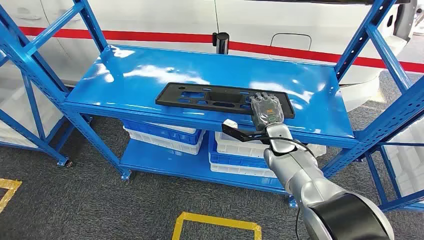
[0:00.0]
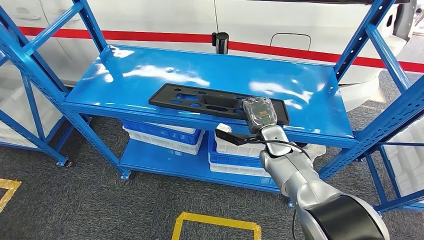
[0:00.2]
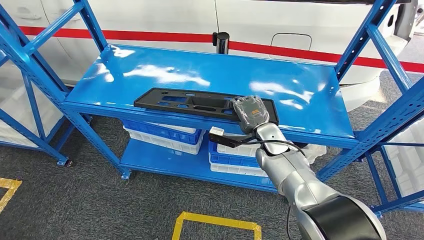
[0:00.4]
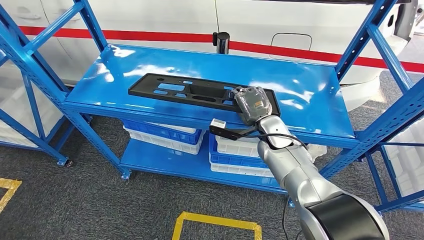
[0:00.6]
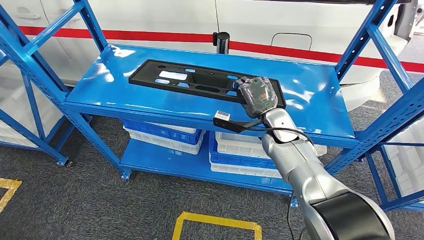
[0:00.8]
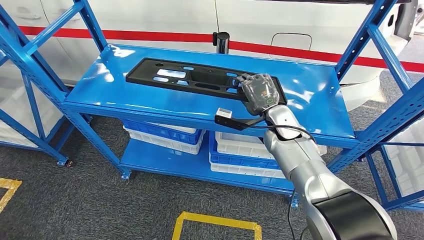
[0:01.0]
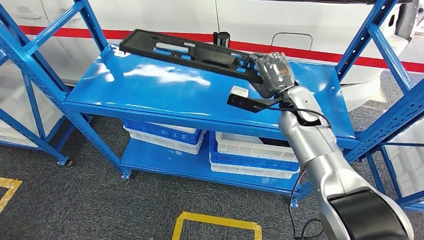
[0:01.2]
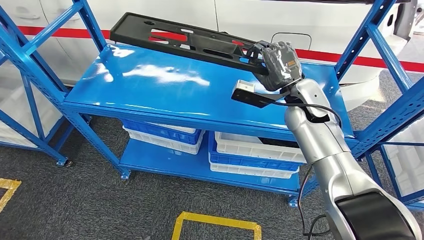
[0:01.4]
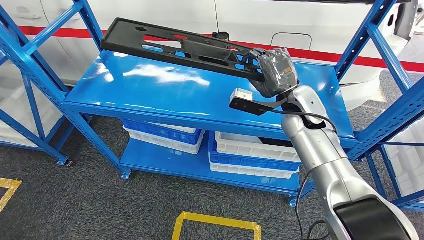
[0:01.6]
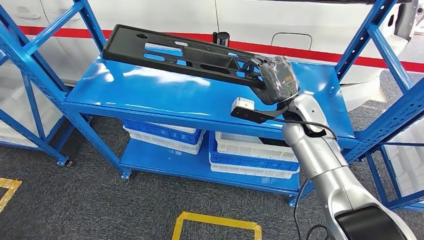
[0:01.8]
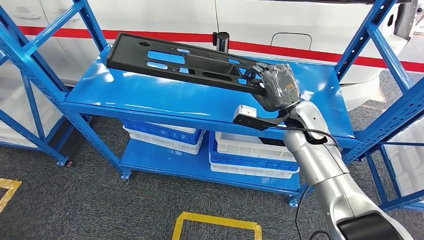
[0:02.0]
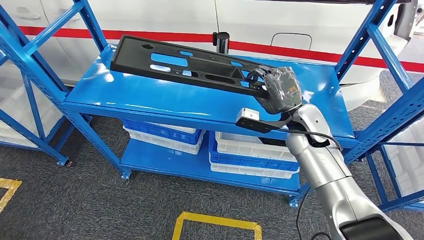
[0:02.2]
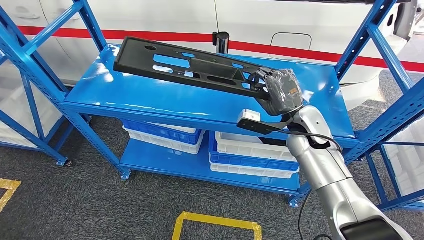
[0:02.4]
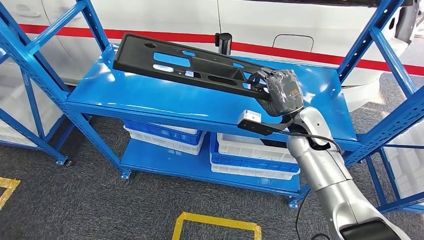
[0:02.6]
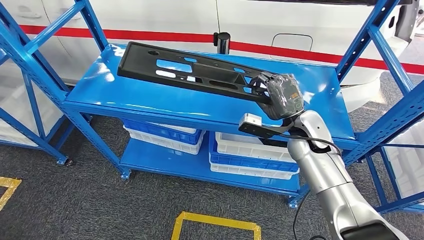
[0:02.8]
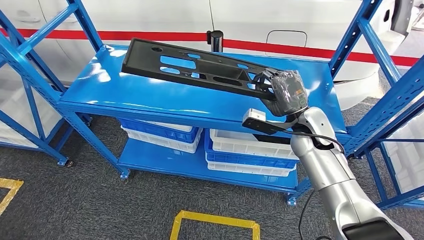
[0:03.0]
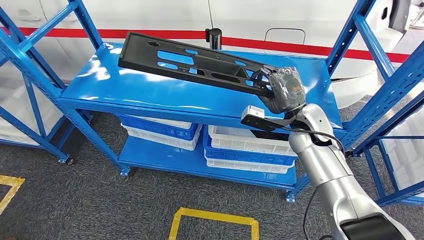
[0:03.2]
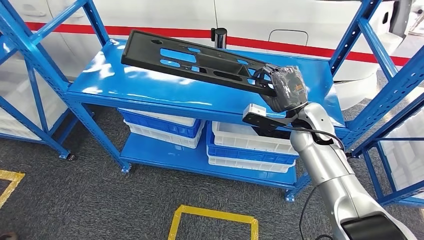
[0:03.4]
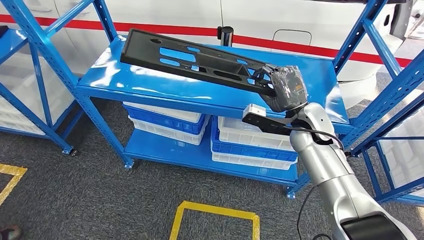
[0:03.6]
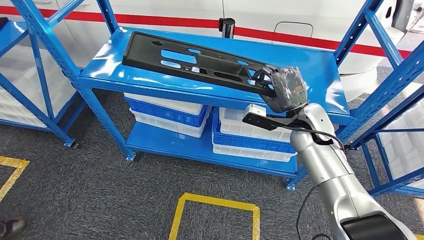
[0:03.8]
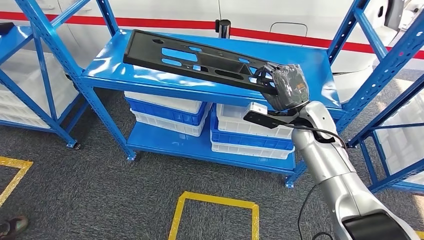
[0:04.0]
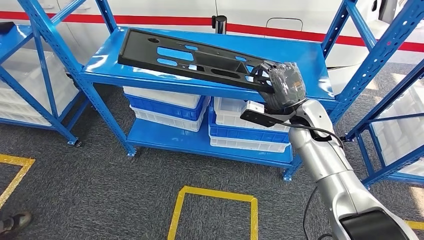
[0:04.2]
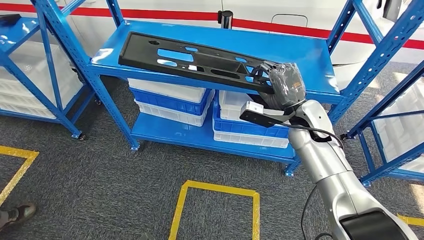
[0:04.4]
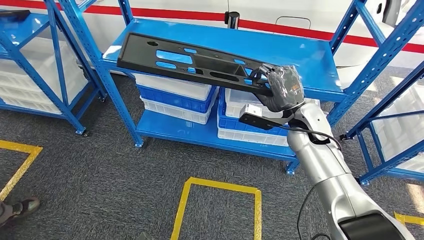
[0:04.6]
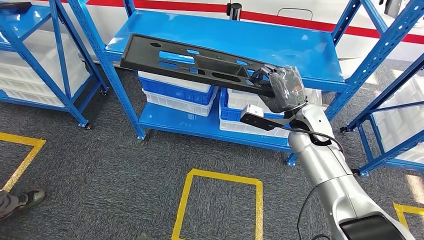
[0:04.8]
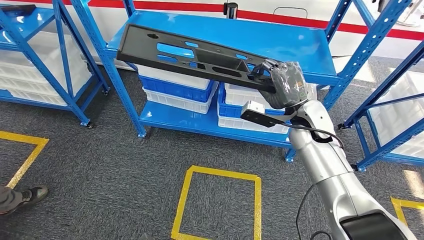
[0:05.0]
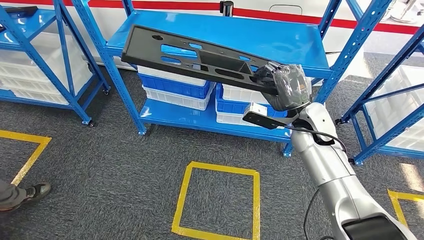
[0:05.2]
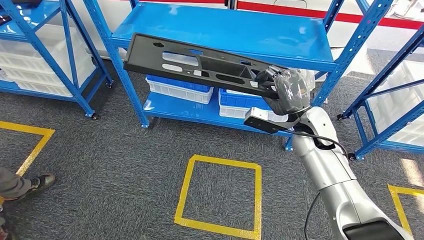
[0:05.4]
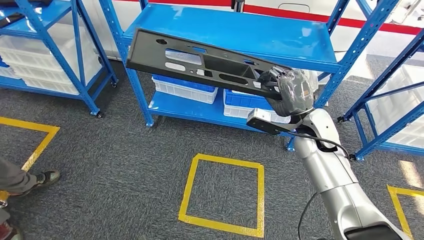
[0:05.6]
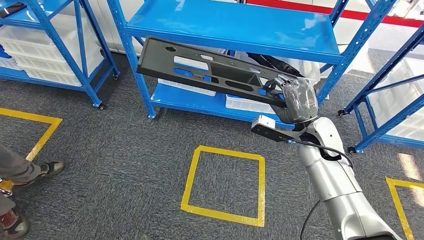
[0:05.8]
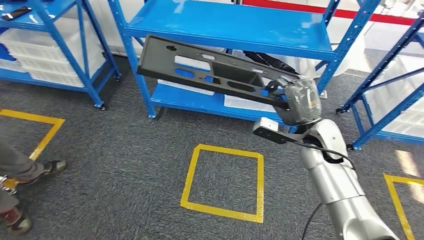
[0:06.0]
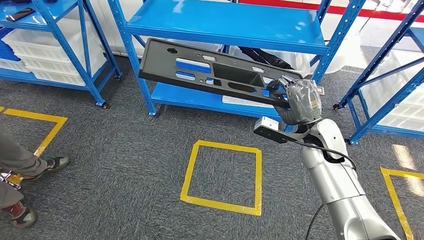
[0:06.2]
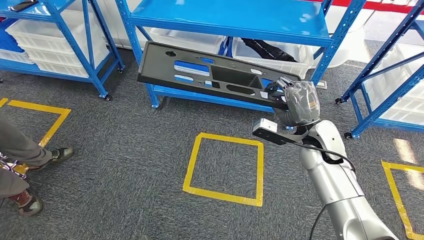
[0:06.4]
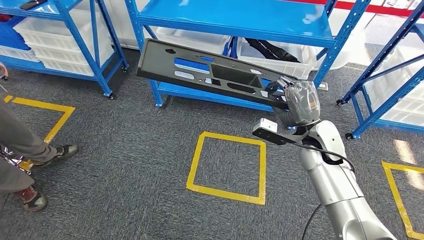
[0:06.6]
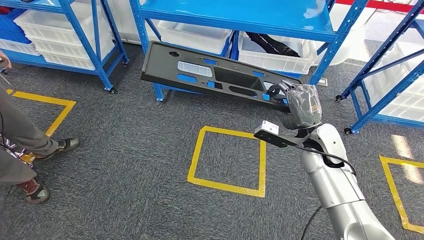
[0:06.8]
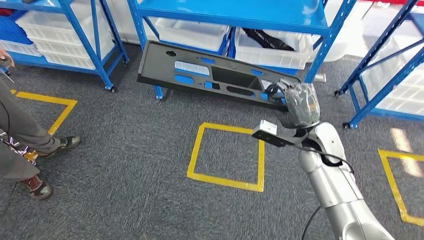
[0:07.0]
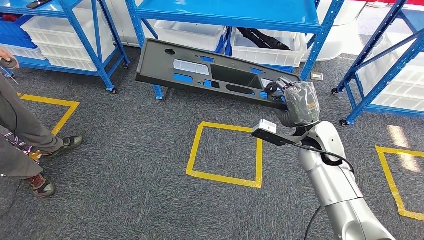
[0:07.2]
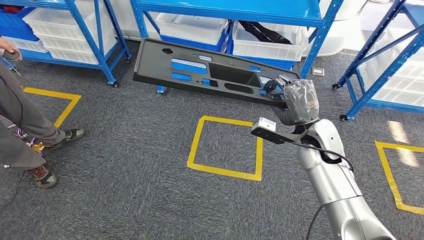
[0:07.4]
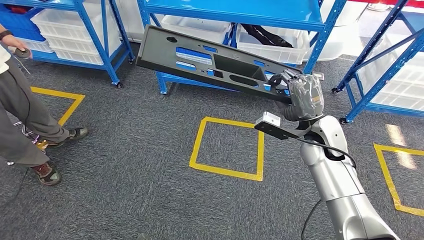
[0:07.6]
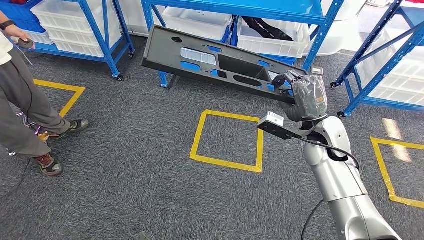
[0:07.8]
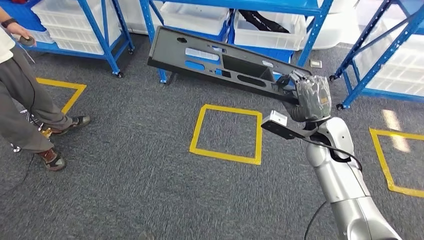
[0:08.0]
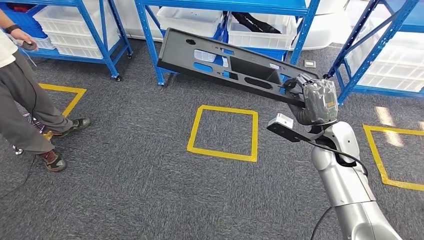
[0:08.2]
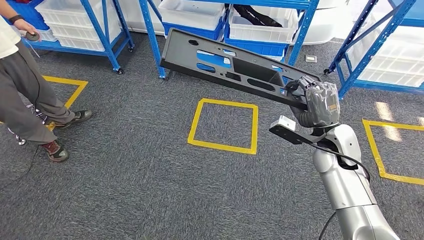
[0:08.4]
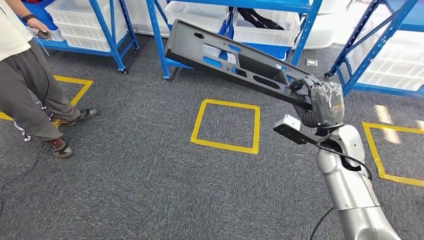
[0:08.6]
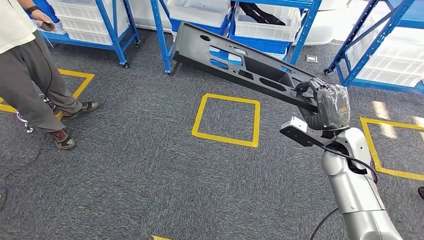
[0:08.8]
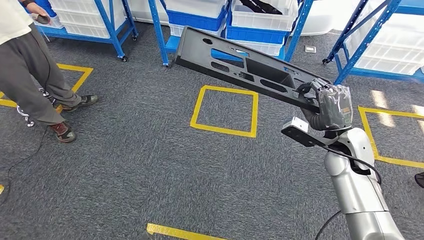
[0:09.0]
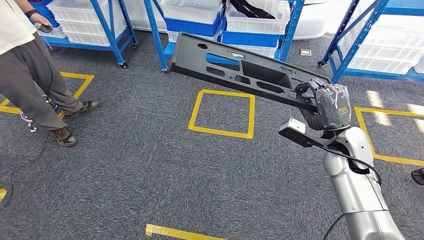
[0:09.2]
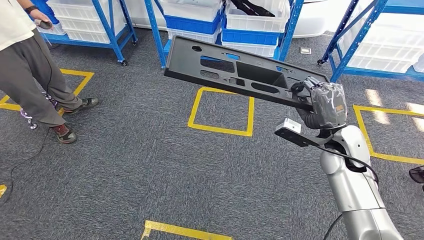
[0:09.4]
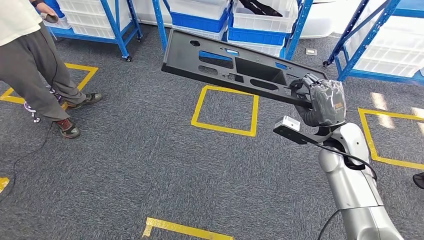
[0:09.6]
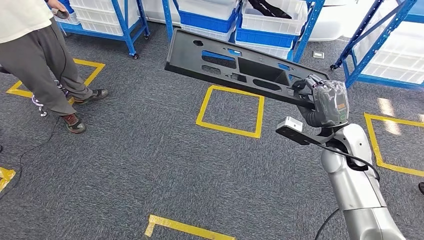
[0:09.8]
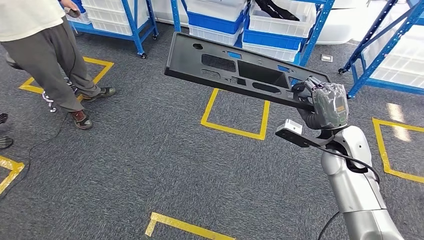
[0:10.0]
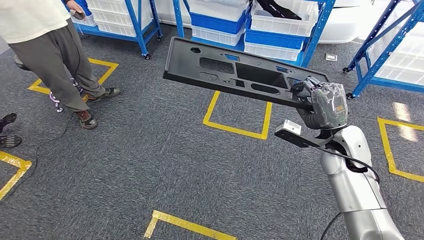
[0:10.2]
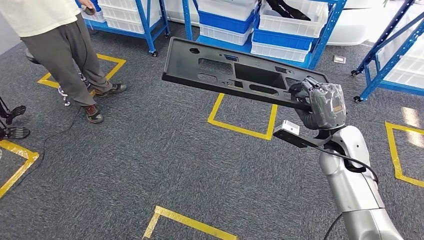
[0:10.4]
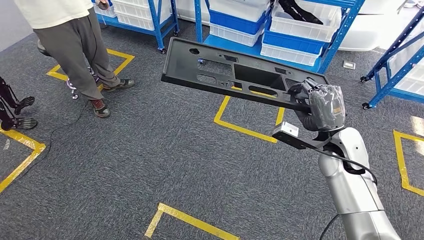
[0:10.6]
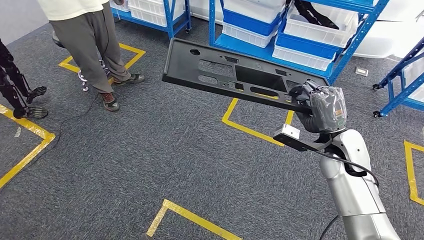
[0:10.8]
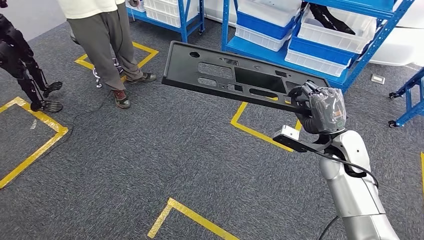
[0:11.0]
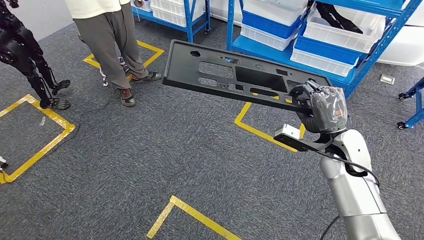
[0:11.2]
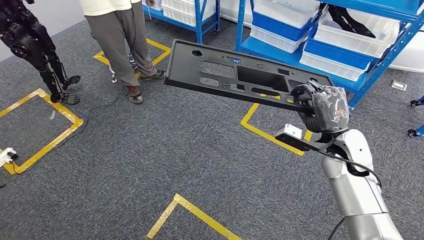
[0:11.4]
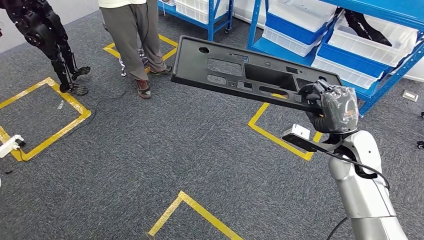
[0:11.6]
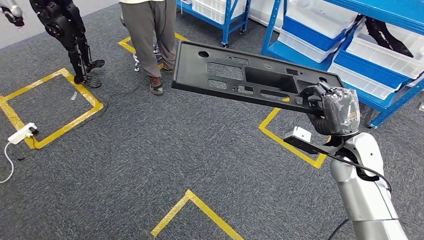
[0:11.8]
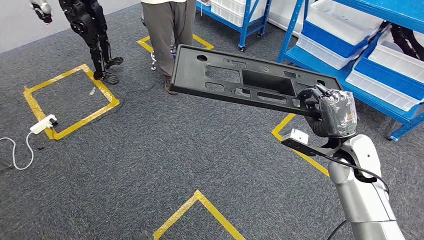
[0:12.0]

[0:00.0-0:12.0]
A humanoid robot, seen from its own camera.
Step, 0:00.0 to 0:04.8: Pick up the large material from the shelf.

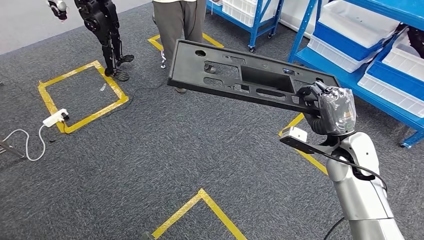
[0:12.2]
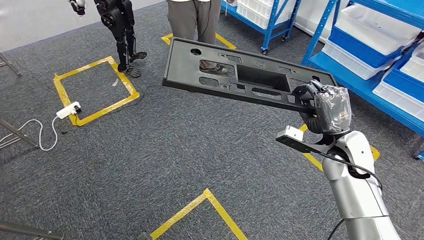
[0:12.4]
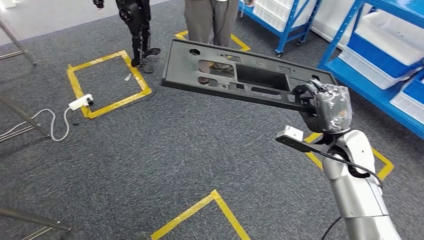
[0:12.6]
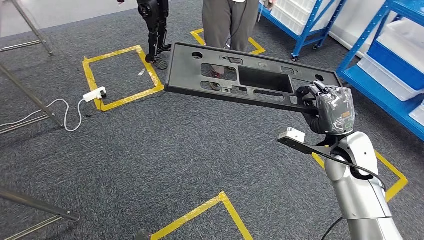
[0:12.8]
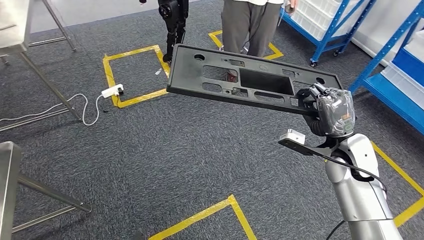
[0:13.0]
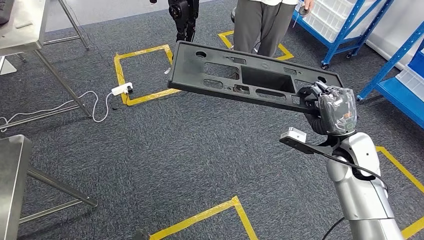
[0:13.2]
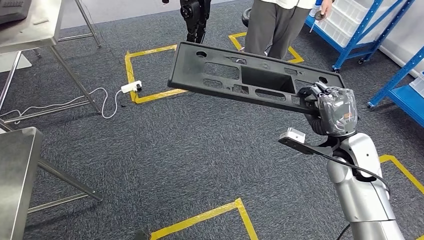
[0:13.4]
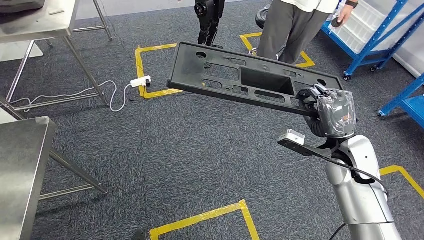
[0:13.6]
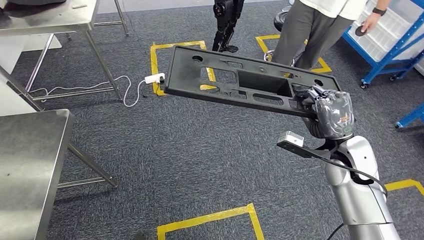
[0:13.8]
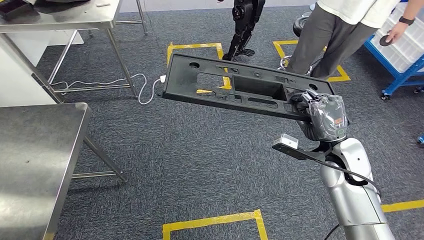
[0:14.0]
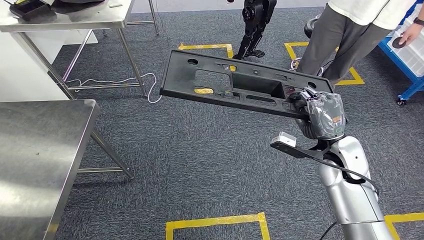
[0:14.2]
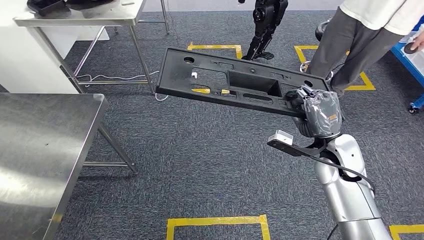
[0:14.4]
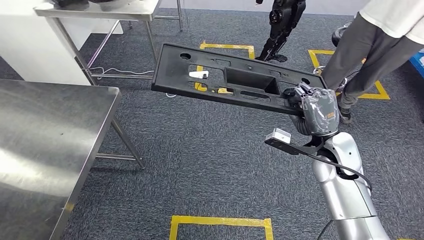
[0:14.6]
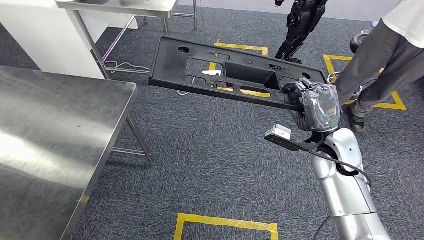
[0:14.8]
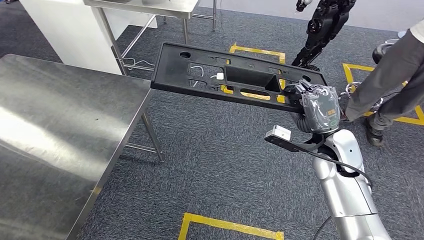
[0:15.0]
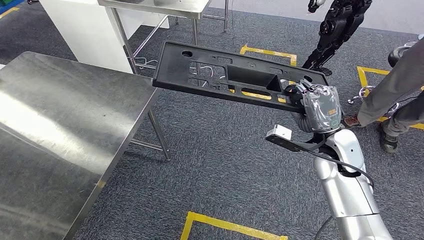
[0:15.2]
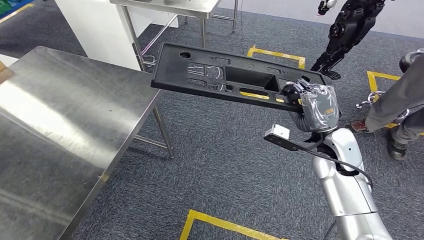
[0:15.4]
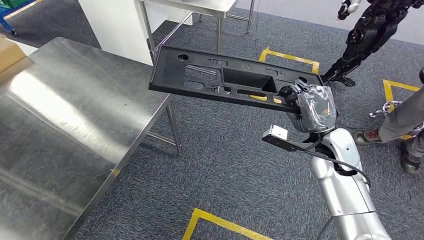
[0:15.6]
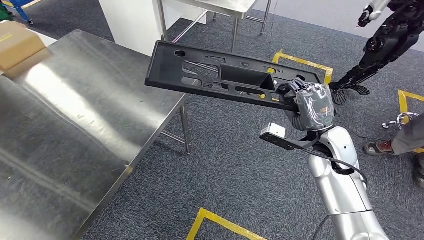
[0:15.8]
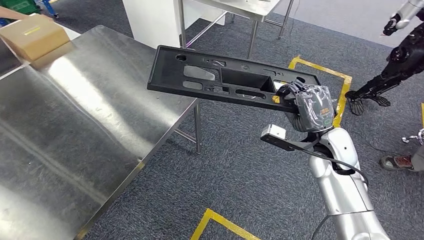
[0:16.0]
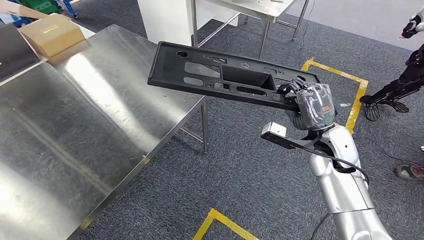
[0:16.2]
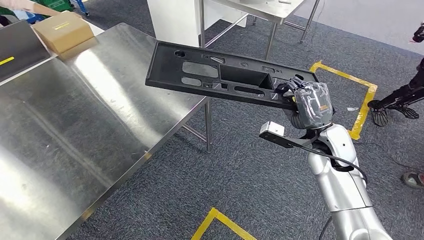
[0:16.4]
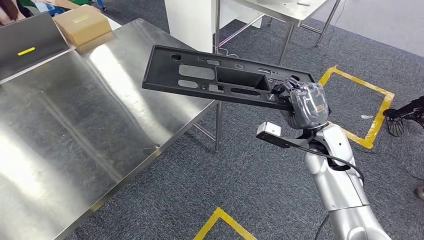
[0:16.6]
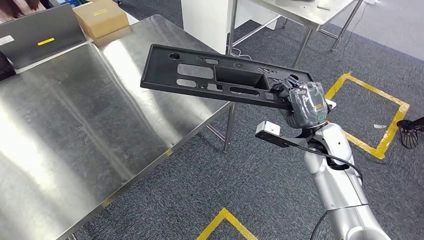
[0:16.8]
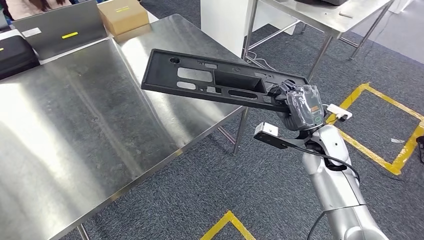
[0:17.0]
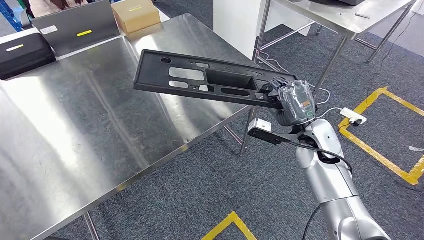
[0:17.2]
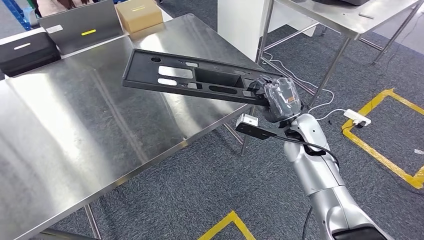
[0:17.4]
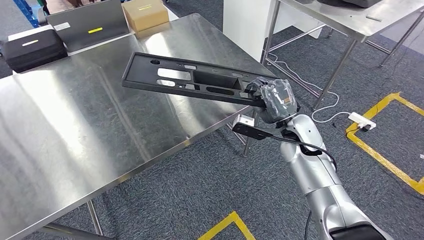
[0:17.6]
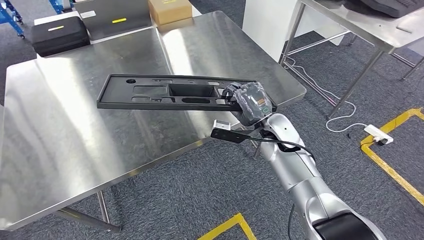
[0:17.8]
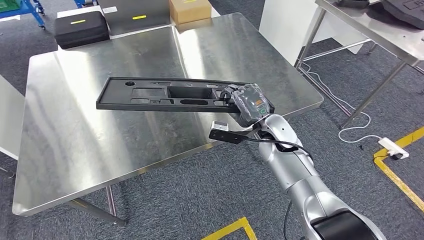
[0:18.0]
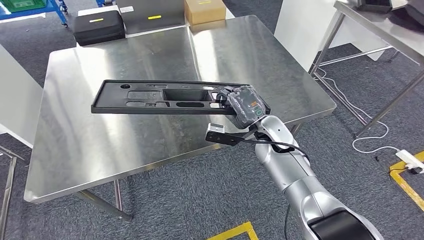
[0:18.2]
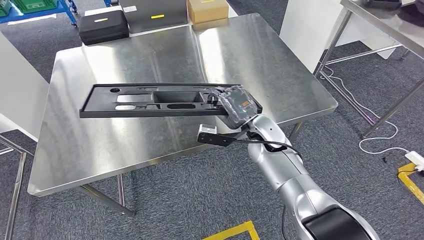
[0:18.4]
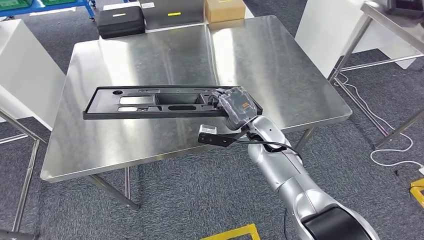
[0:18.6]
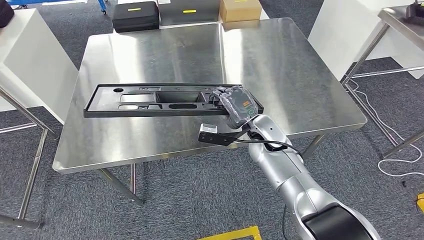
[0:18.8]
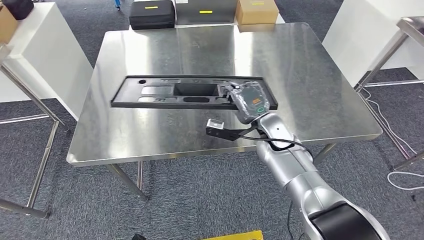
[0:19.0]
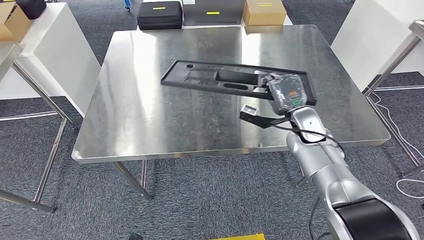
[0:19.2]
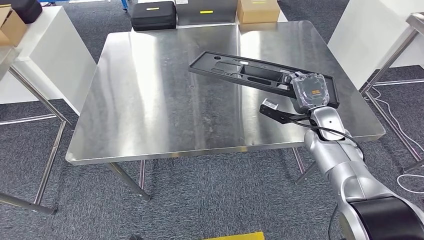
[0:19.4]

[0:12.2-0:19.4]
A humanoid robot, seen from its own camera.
Step, 0:12.2 to 0:17.6: Move the large material to the workbench.
